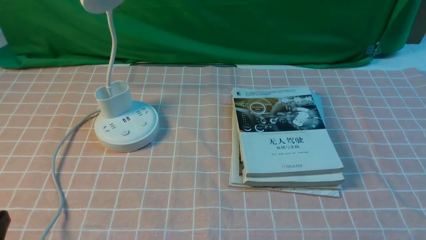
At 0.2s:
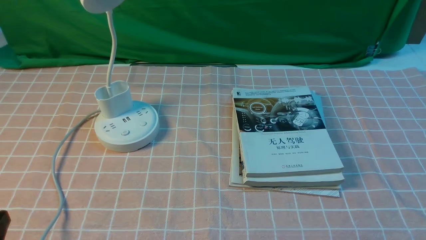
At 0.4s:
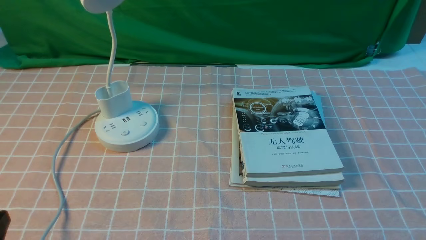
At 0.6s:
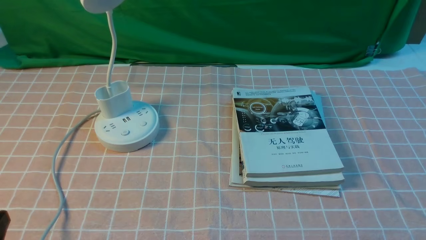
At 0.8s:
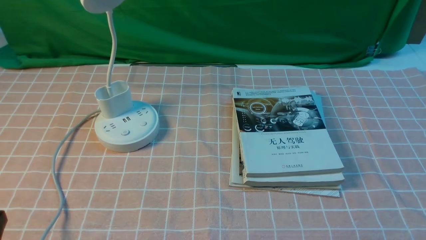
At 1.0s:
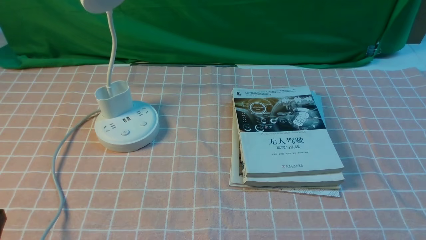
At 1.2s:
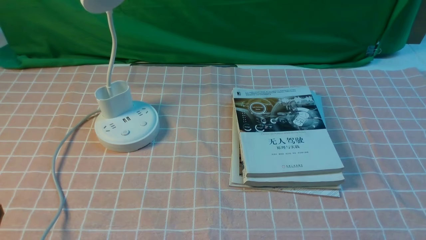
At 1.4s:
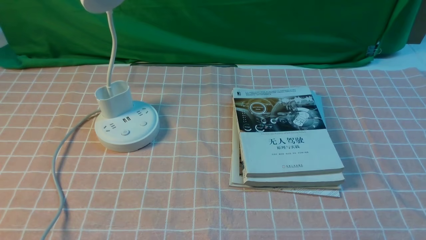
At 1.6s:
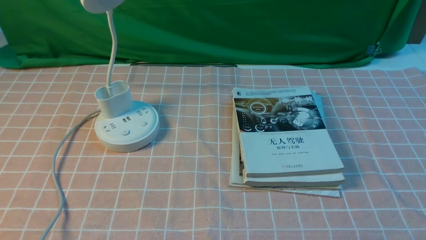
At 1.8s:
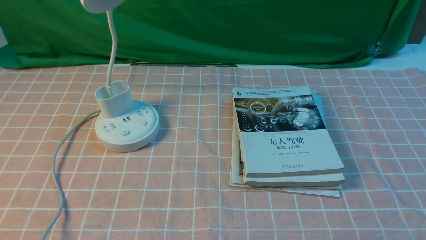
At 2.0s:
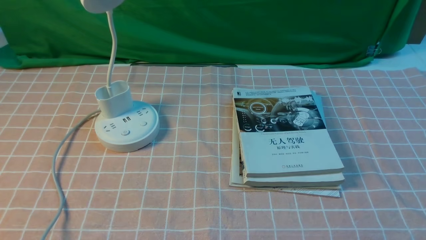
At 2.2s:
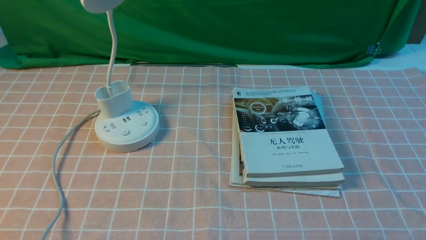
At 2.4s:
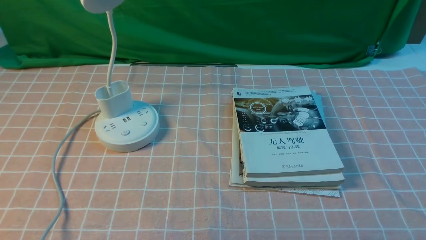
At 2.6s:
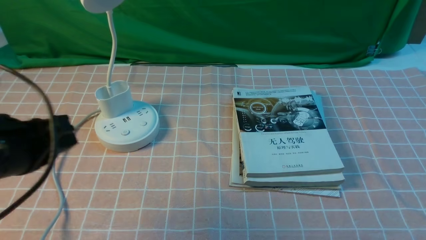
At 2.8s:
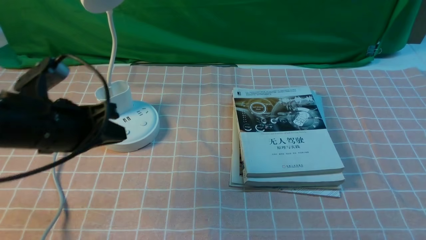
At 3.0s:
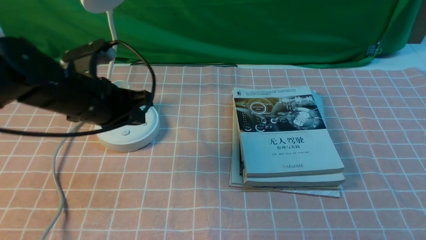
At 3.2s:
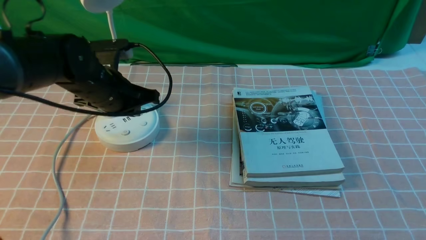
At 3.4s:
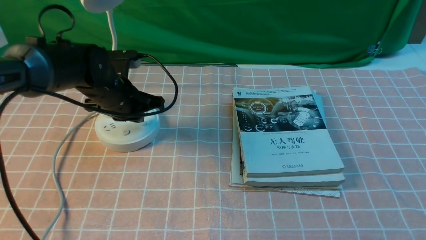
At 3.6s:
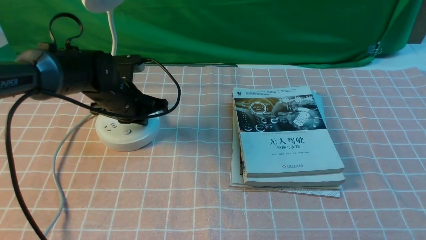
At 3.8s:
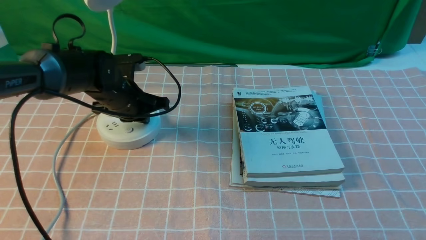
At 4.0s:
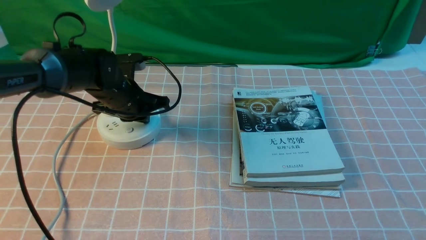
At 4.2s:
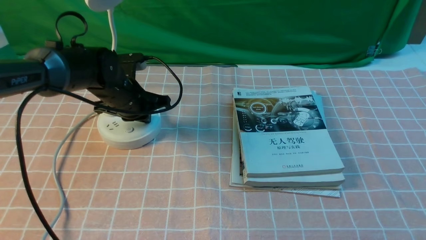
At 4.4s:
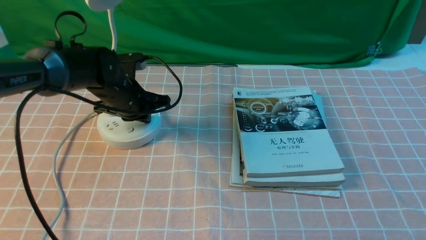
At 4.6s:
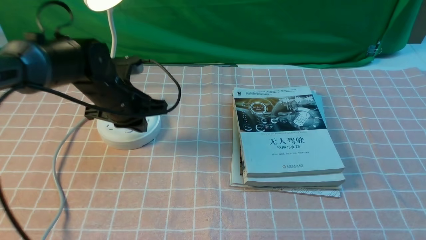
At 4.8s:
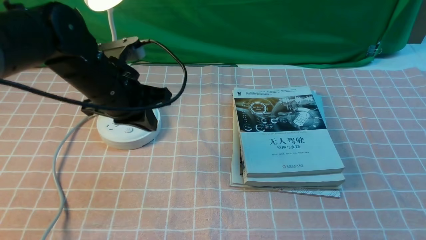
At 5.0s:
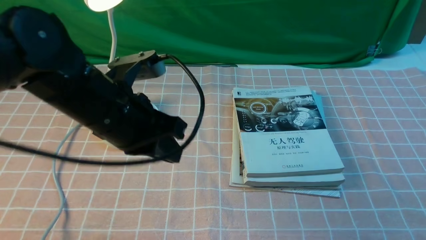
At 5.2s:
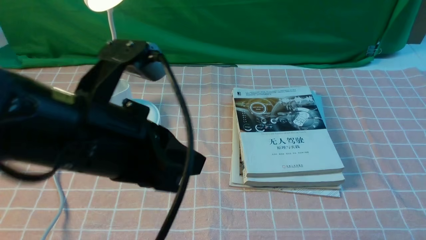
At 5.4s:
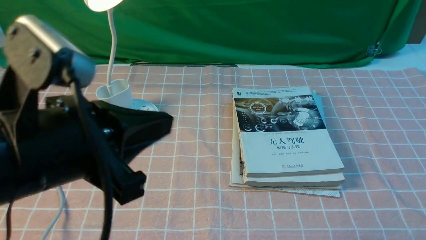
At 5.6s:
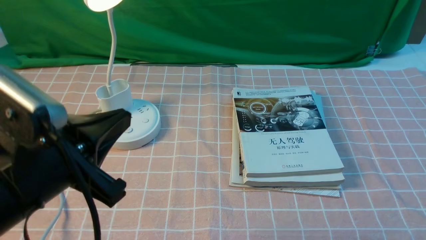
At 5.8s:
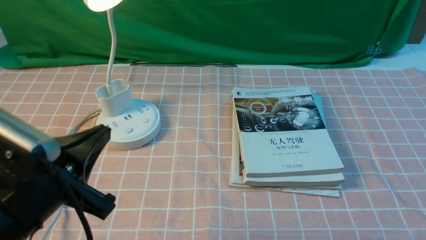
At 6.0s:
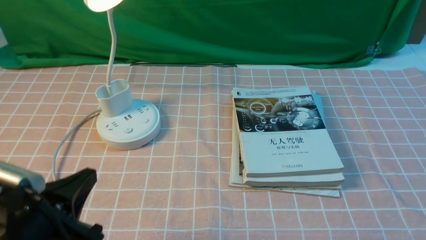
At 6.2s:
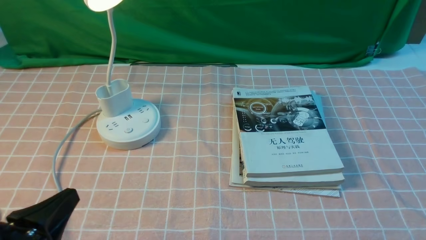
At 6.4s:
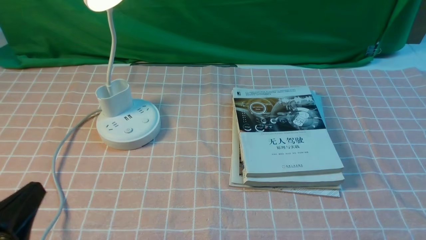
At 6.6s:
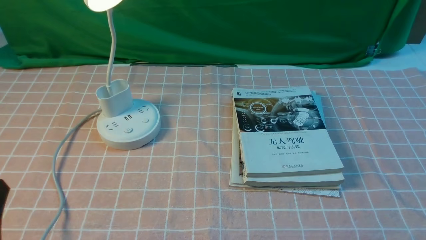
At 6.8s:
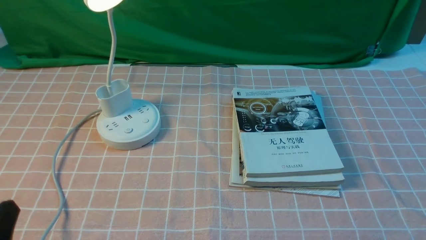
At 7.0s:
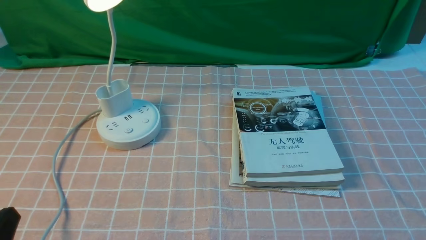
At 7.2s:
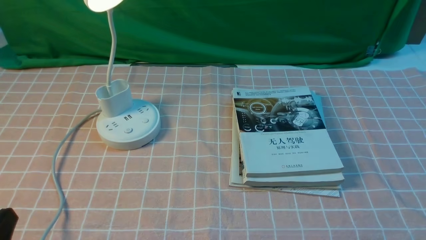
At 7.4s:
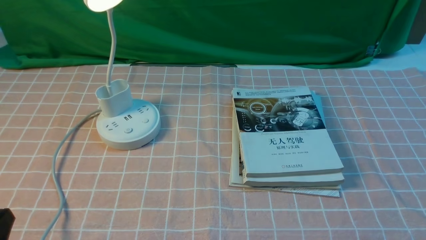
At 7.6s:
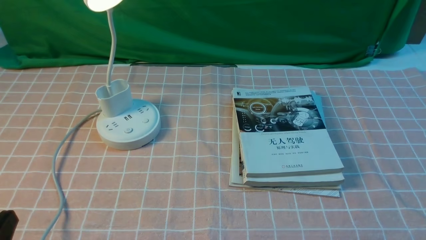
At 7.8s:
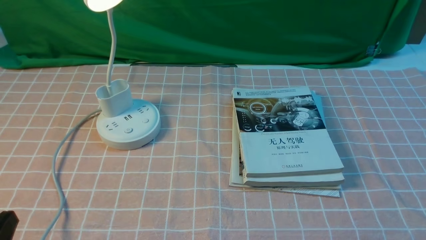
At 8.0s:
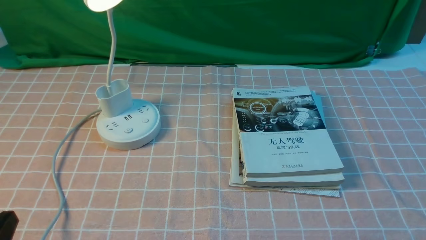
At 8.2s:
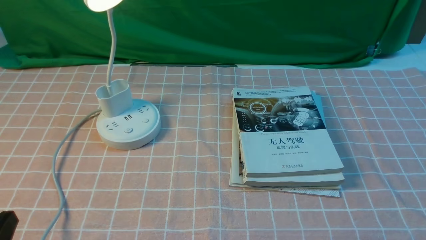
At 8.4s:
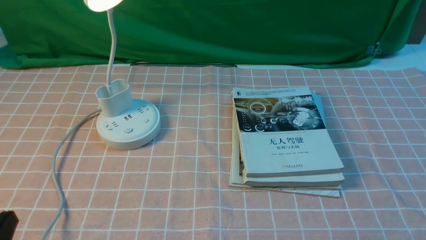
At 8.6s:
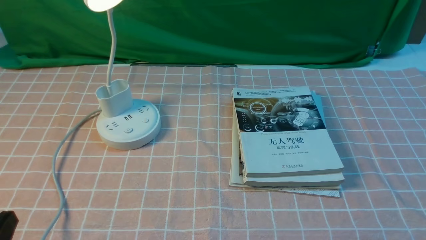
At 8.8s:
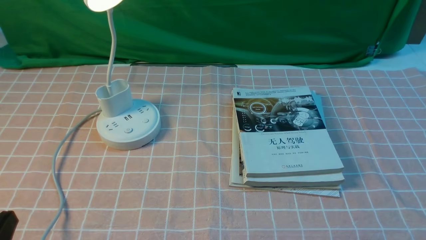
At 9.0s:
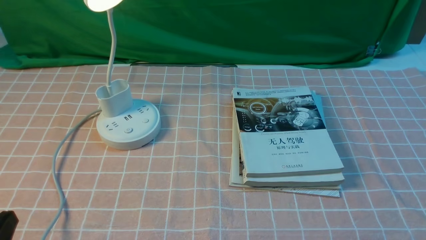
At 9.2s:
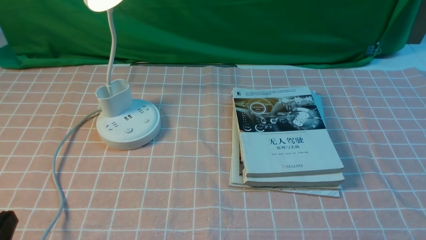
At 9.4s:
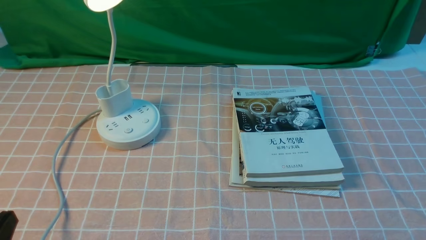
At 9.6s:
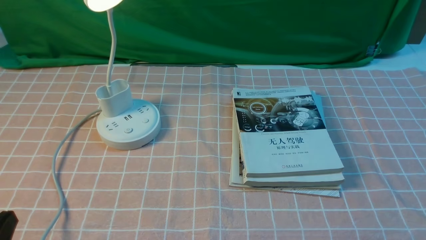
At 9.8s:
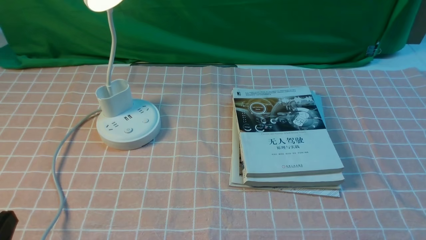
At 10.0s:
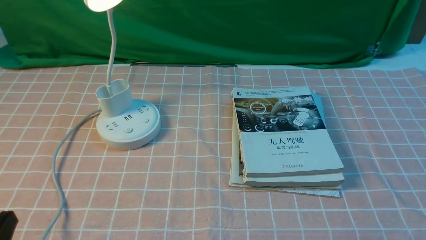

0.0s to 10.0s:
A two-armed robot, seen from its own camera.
Step, 0.0s to 4.6s: use the left arm to press the button switch on the lamp holder.
1.4s to 2.8s: The left gripper shifts approximately 20 cm forward.
2.8s to 4.2s: The left gripper goes roughly 20 cm forward and downward.
4.2s to 5.8s: The left gripper travels backward by about 30 cm.
5.8s to 7.2s: The left gripper is displaced backward, to the left and downward by roughly 10 cm.
8.6s to 10.0s: Neither gripper changes place.
